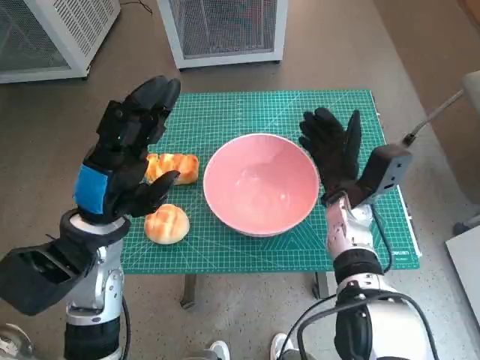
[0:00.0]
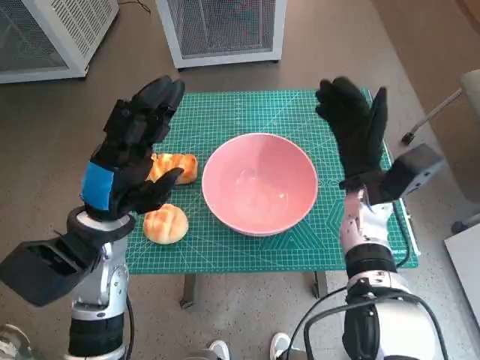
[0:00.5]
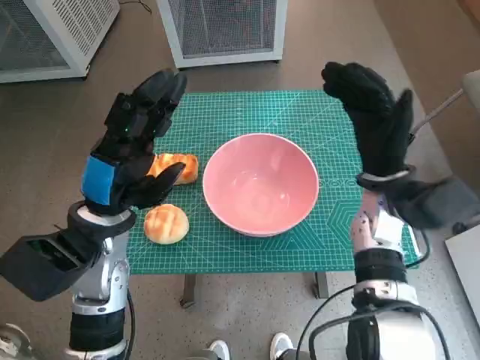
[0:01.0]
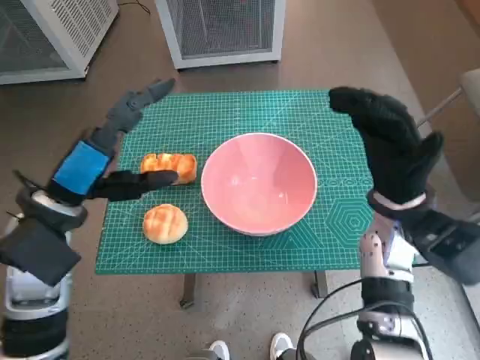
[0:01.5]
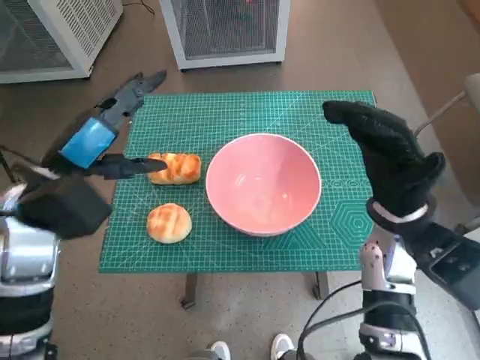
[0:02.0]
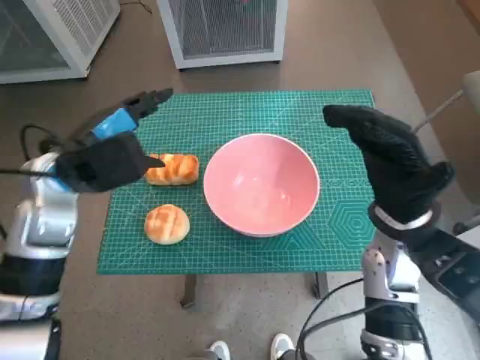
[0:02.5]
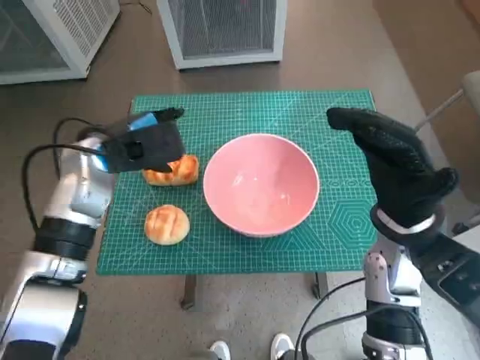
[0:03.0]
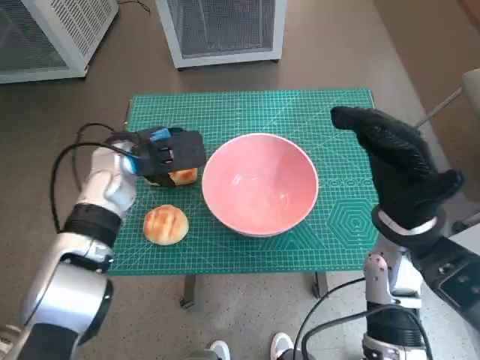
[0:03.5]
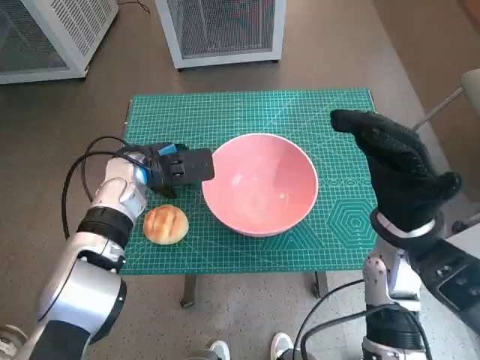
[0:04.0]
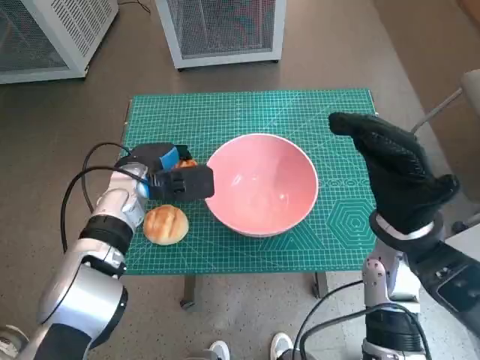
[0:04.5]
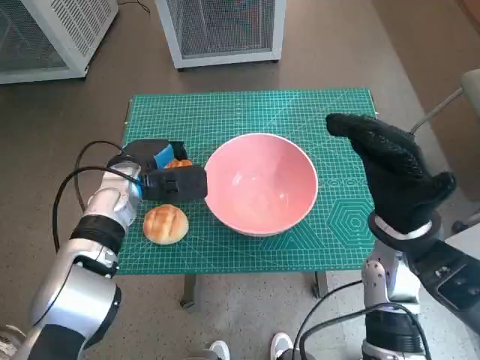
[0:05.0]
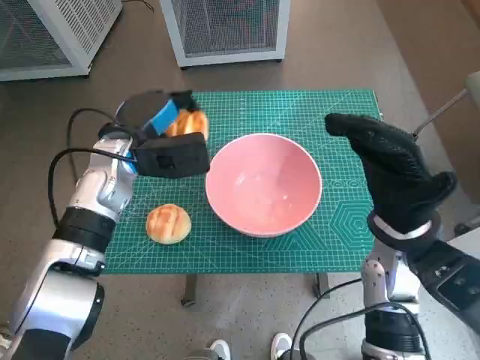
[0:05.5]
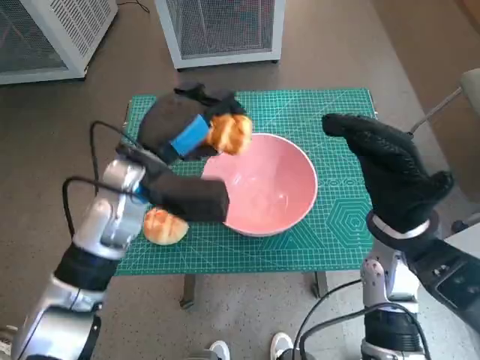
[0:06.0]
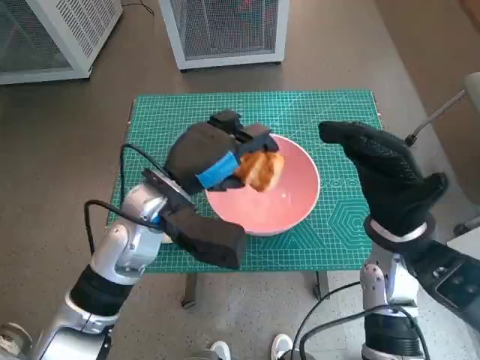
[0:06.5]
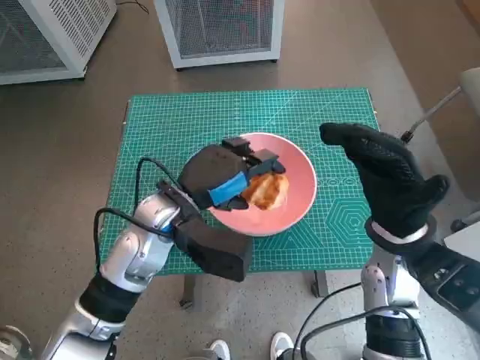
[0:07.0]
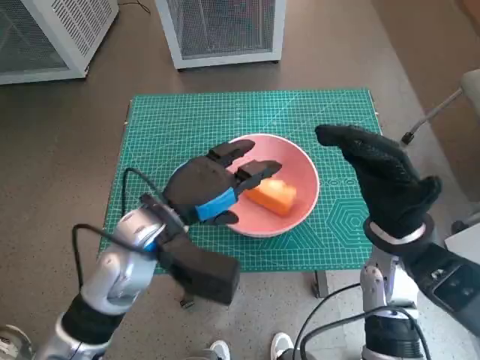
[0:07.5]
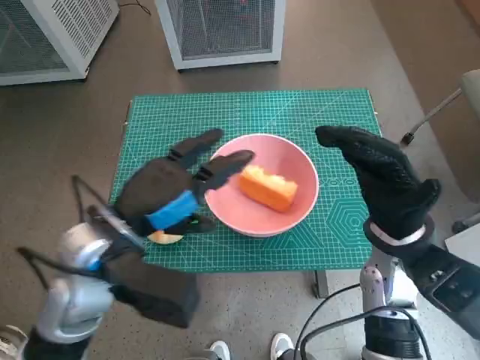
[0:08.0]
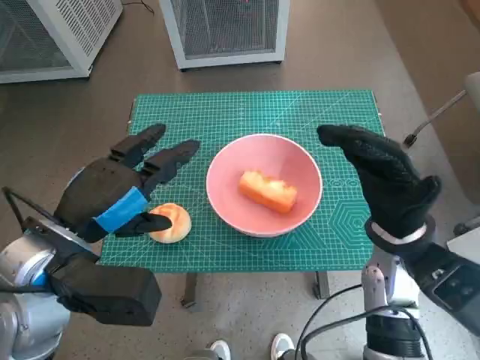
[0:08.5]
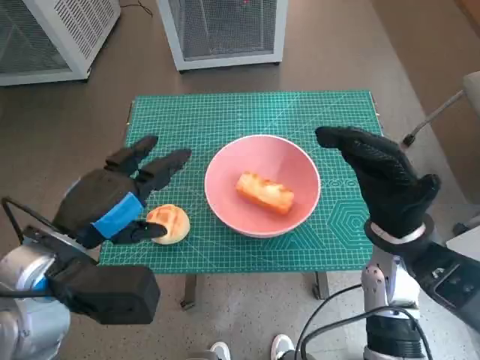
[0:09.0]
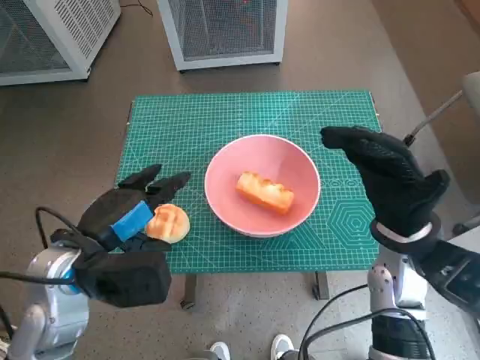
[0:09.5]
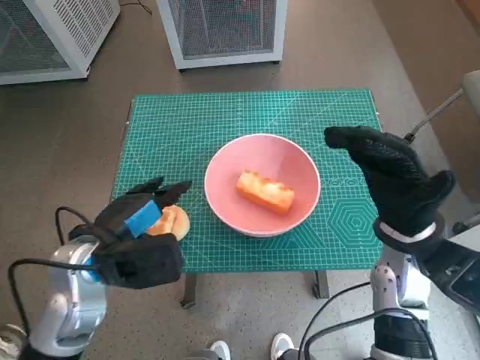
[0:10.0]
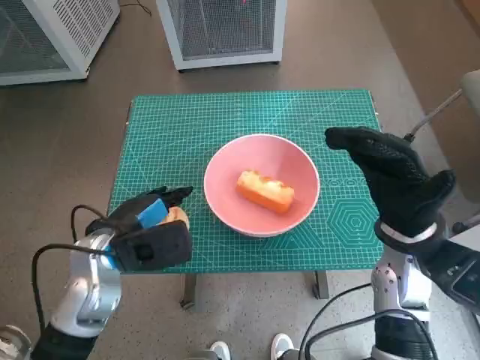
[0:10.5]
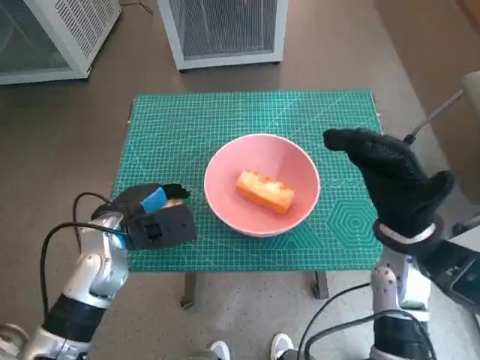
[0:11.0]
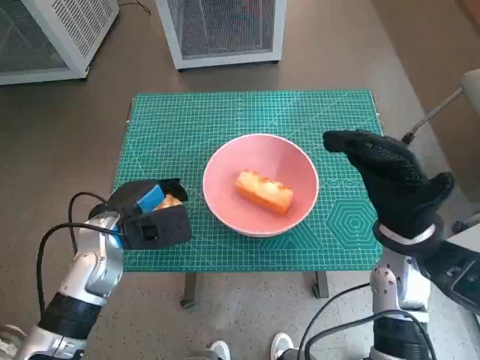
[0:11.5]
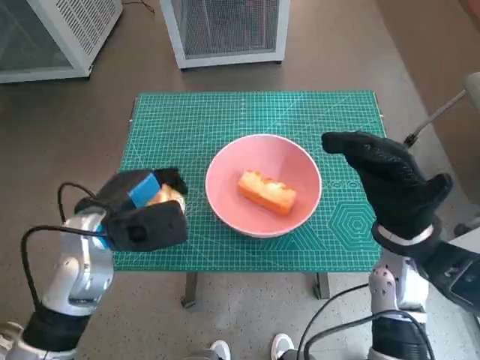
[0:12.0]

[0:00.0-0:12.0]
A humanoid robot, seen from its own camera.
Task of the whole recording: Push the bowl into the center of the table and put the bread into the bowl.
Step, 0:00.5 to 0:04.5: Grasp the long bread with left hand.
Step, 0:05.0 to 0:07.0: Place the long bread in pink bowl with left hand.
Step, 0:07.5 to 0:11.0: Grasp the round bread with left hand.
0:00.0 to 0:02.0: The left hand is displaced upward by roughly 5 cm; the right hand moves upward and backward, roughly 10 cm.
0:02.0 to 0:04.0: The left hand goes about 15 cm forward and downward.
0:04.0 to 0:06.0: The left hand is displaced upward by roughly 5 cm.
0:06.0 to 0:08.0: The left hand travels backward by some 10 cm.
0:08.0 to 0:10.0: The left hand changes place by approximately 5 cm.

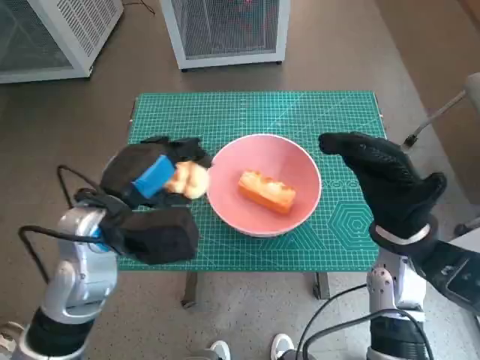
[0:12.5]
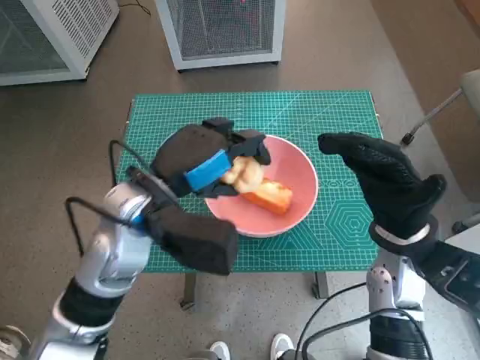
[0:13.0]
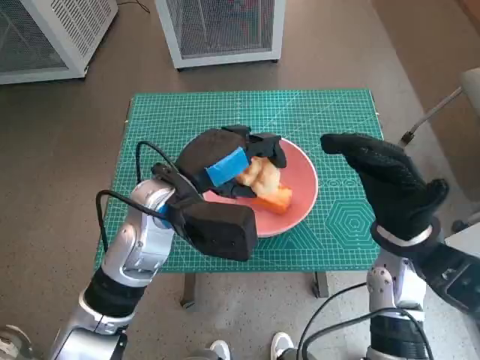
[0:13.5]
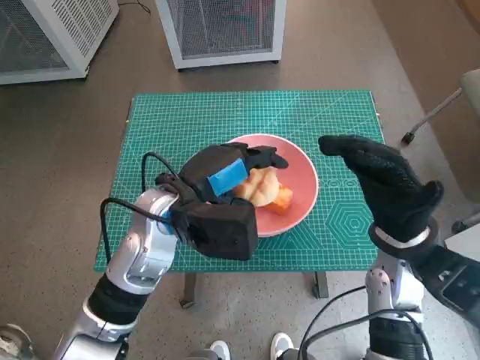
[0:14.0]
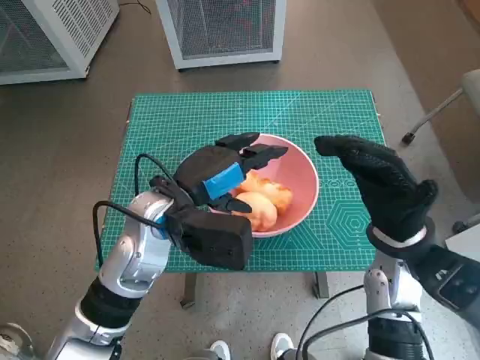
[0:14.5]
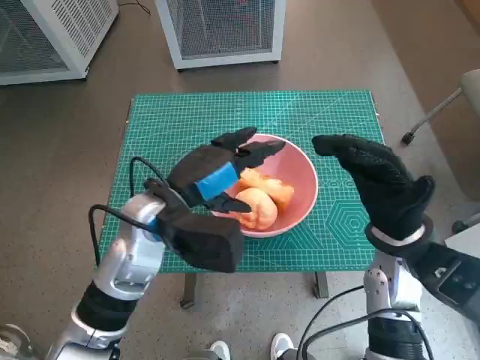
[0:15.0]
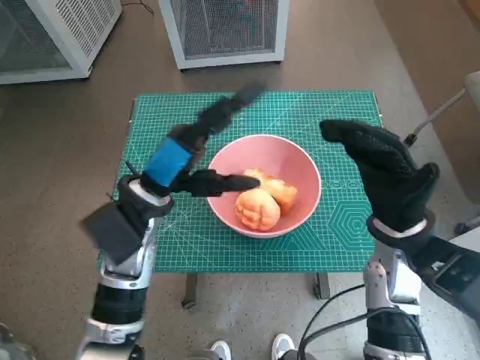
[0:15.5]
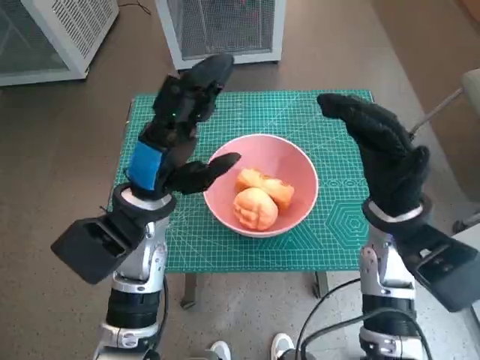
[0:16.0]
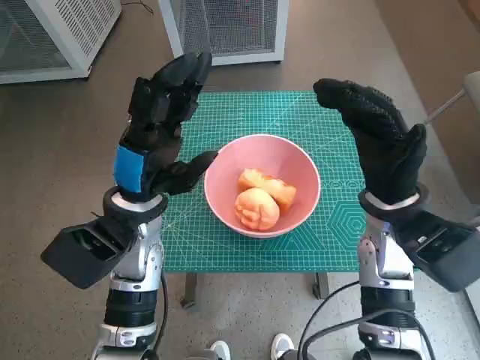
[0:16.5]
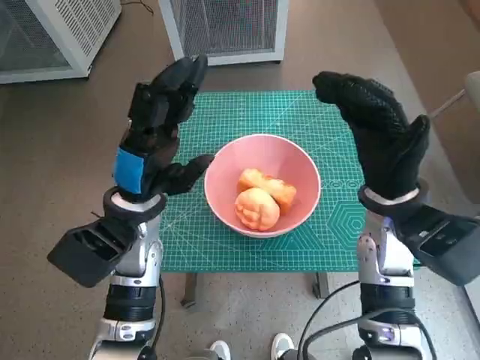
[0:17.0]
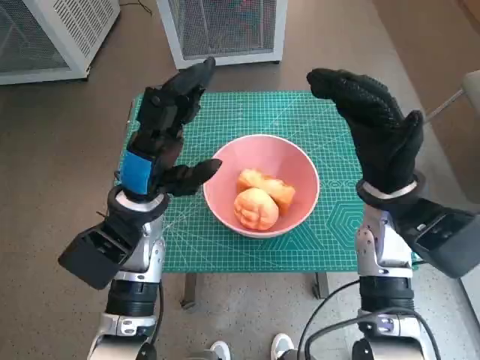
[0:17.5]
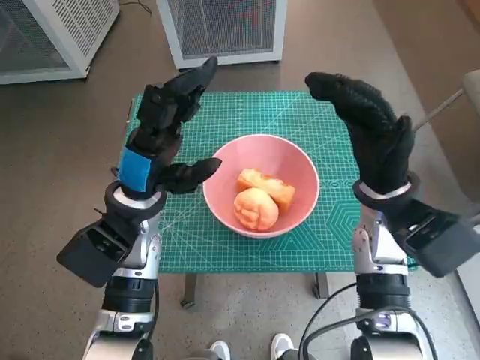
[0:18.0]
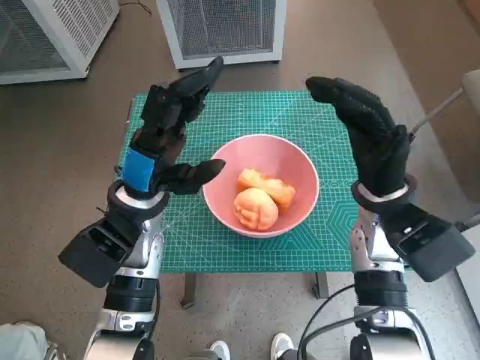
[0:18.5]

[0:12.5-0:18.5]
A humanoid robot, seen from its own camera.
Task of the whole recording: Push the bowl into the center of the table and put the bread into the bowl.
0:12.5 to 0:14.5: The left hand is displaced to the right by roughly 5 cm.
0:16.5 to 0:18.5: The hands stay close to where they were, moving slightly.

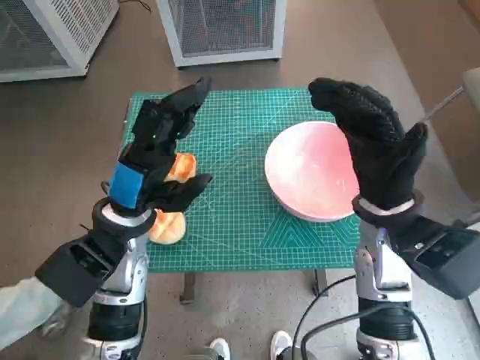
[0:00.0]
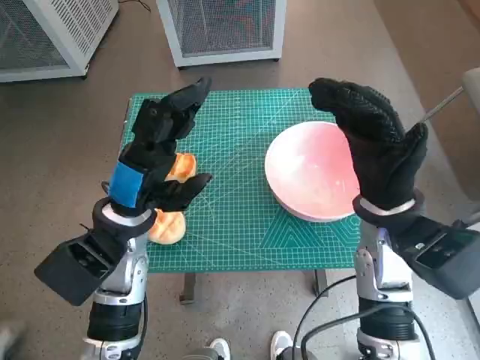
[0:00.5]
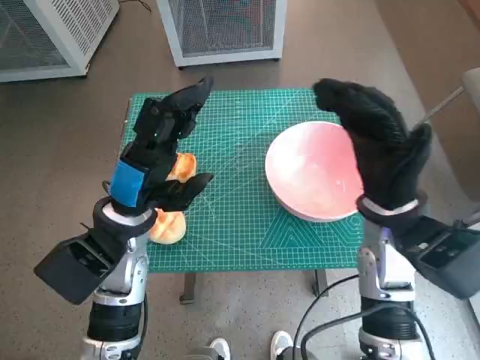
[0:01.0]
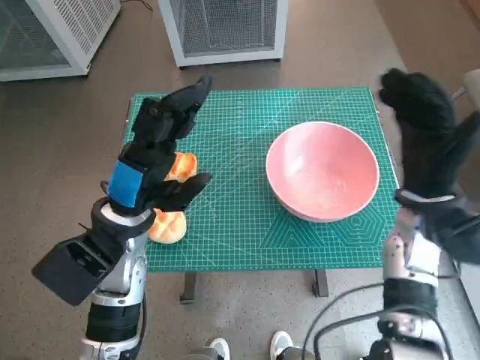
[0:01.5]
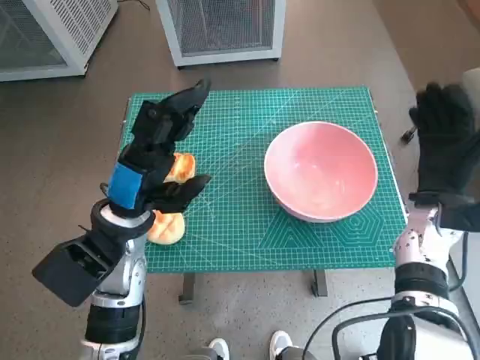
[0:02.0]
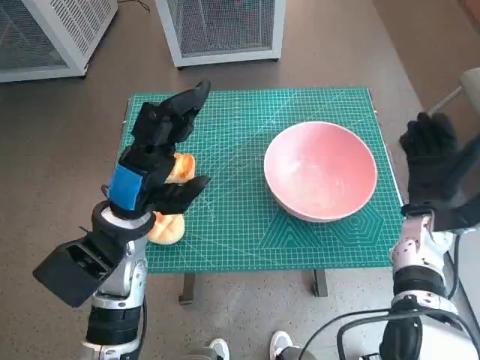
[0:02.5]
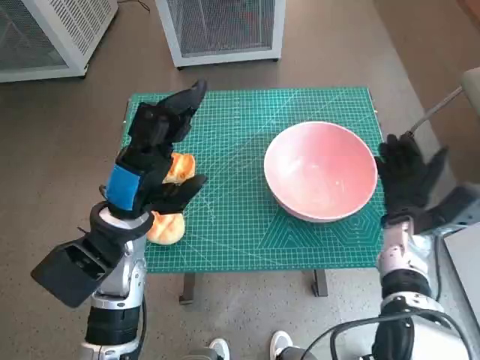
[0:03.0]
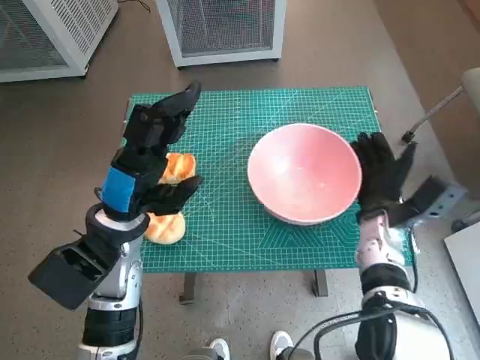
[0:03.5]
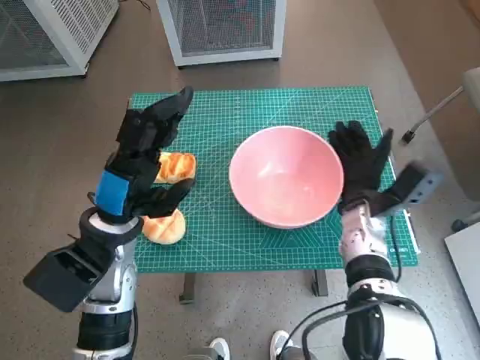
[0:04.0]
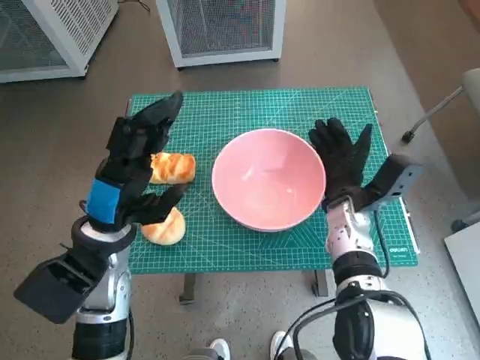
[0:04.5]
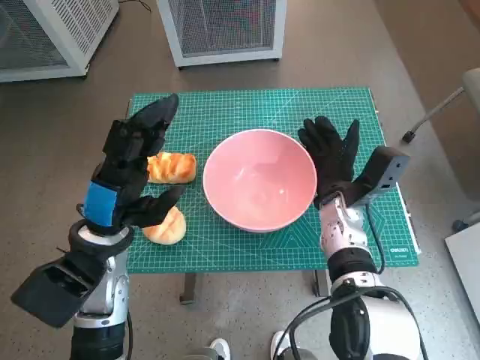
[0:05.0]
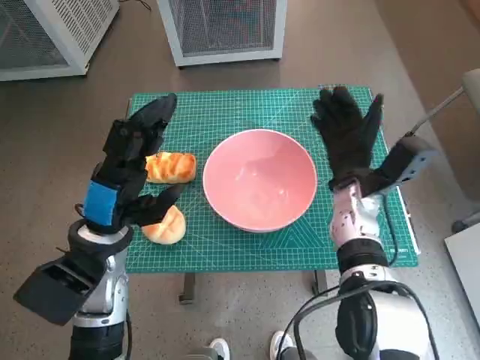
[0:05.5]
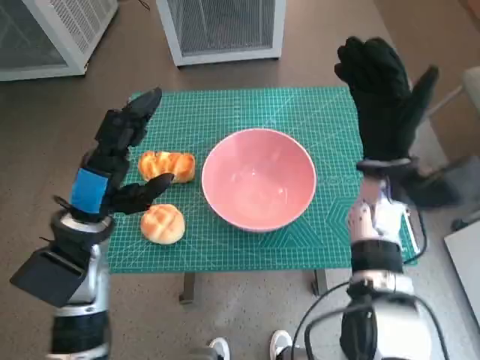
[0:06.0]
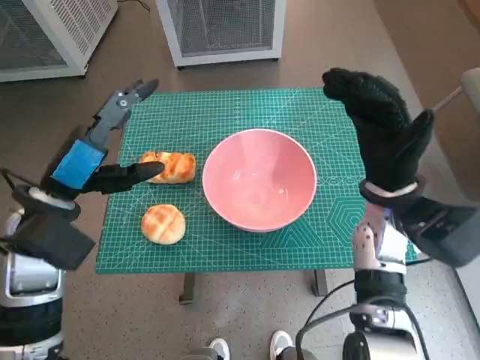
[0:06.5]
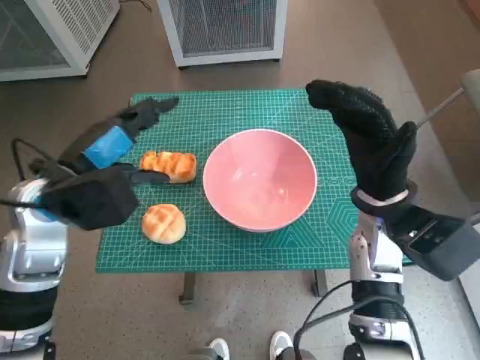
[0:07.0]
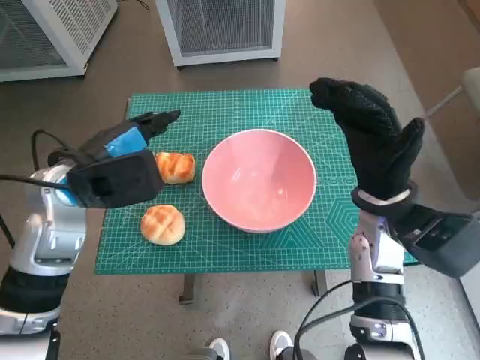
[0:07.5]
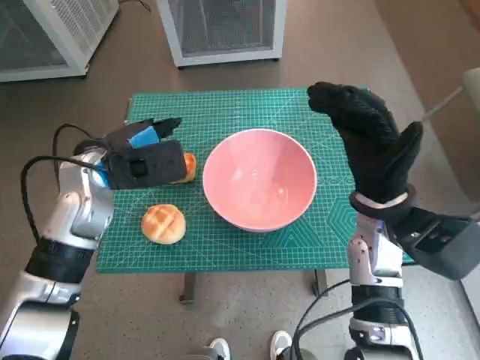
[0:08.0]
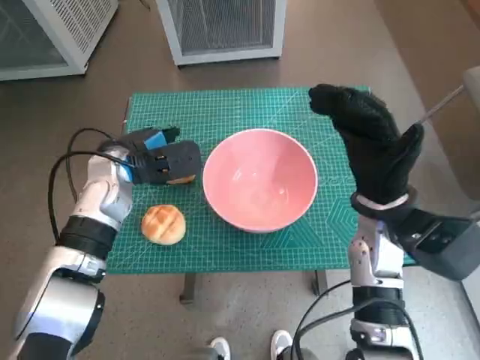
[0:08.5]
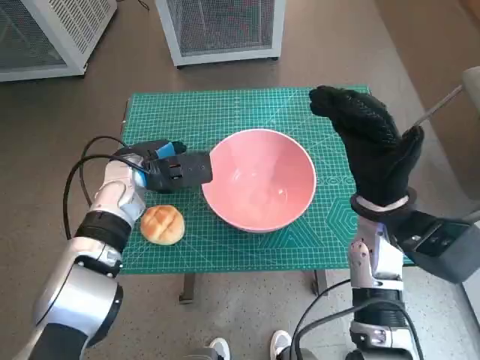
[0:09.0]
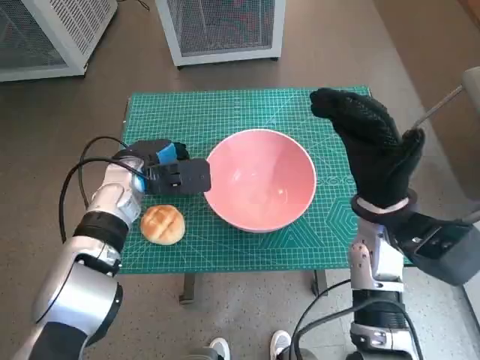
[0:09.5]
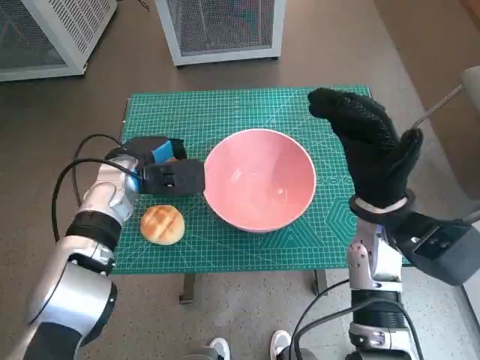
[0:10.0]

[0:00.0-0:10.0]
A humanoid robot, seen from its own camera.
Task of the whole recording: Push the bowl into the center of the table and put the bread into the bowl.
Step, 0:00.0 to 0:05.0: Move the pink bowl to the center of table with right hand.
Step, 0:05.5 to 0:09.0: Grasp the long bread with left hand.
0:02.0 to 0:04.0: The right hand goes roughly 10 cm to the left.
0:04.0 to 0:06.0: The right hand moves upward, about 10 cm.
0:06.0 to 0:08.0: The left hand goes approximately 10 cm forward. The right hand changes place by some 5 cm.
0:08.0 to 0:10.0: The left hand goes roughly 5 cm downward.
